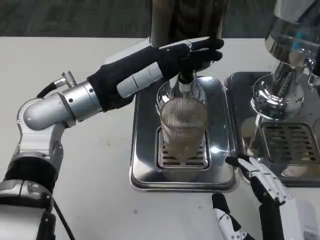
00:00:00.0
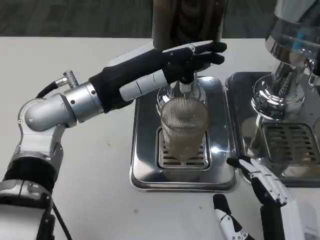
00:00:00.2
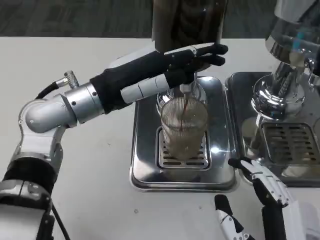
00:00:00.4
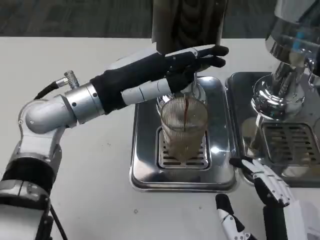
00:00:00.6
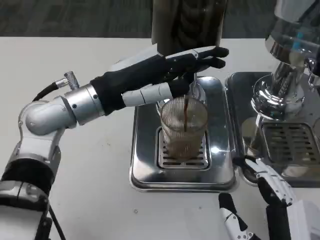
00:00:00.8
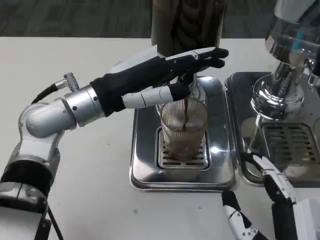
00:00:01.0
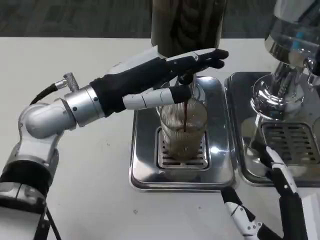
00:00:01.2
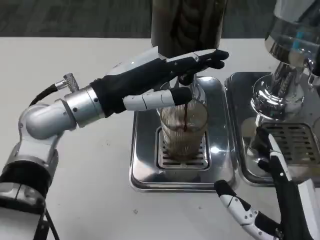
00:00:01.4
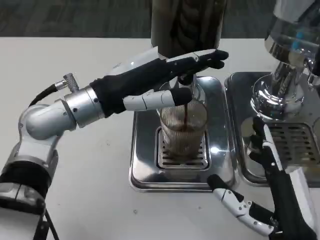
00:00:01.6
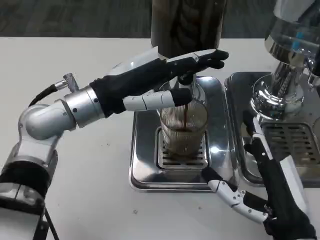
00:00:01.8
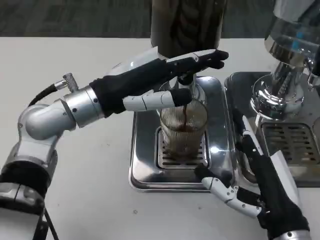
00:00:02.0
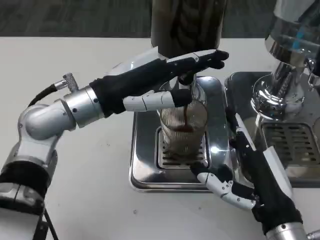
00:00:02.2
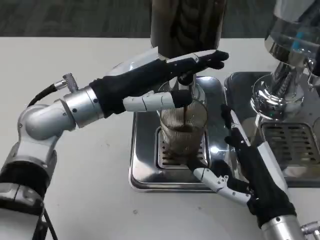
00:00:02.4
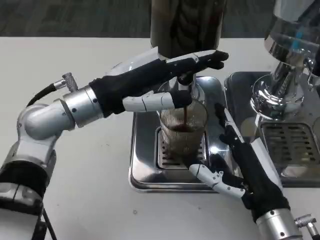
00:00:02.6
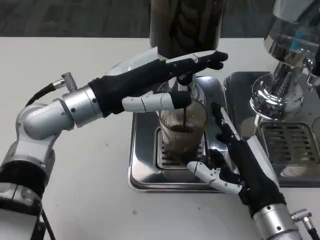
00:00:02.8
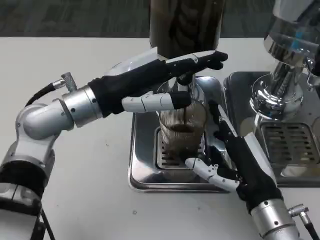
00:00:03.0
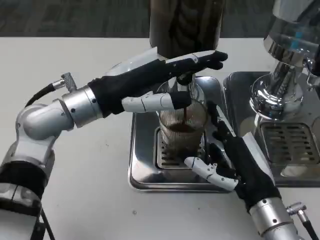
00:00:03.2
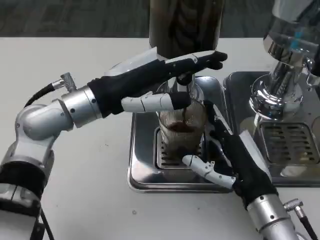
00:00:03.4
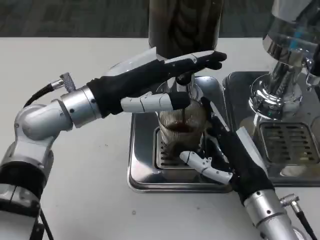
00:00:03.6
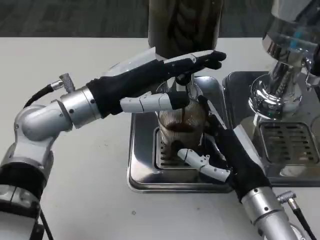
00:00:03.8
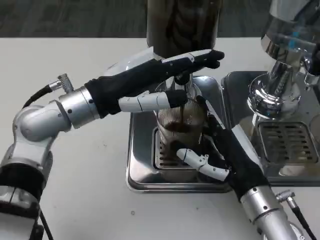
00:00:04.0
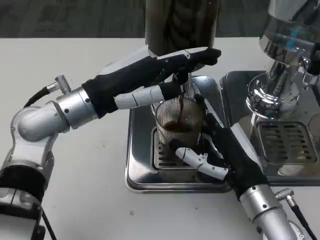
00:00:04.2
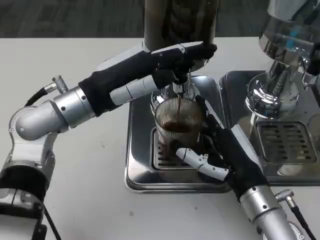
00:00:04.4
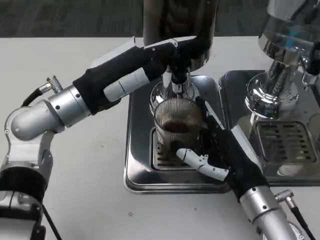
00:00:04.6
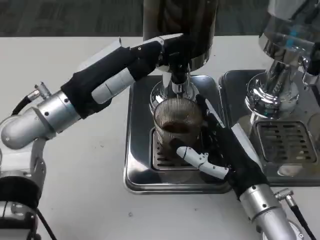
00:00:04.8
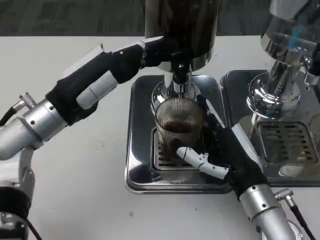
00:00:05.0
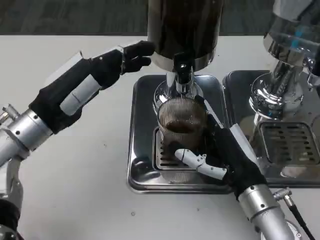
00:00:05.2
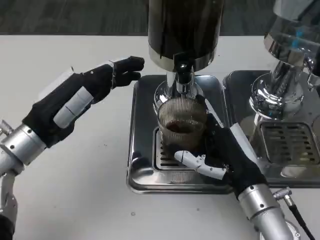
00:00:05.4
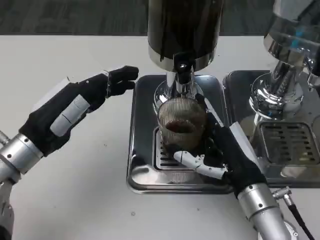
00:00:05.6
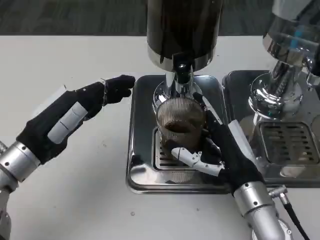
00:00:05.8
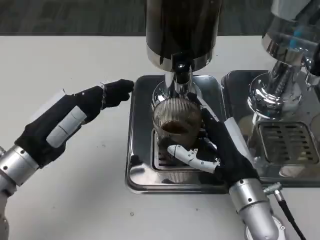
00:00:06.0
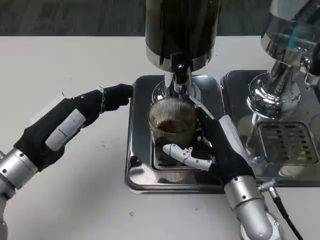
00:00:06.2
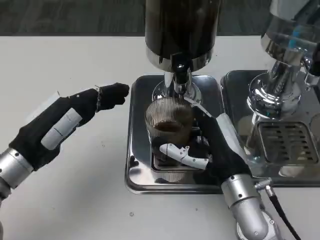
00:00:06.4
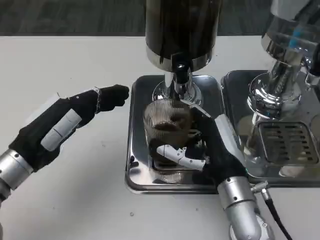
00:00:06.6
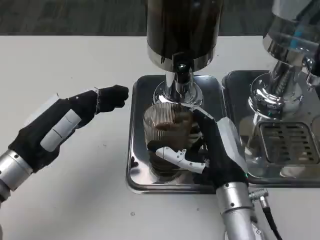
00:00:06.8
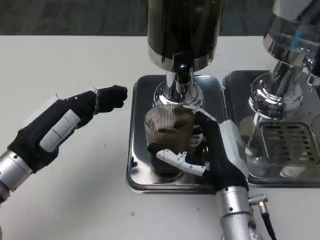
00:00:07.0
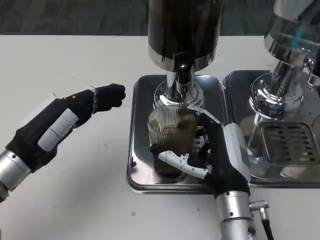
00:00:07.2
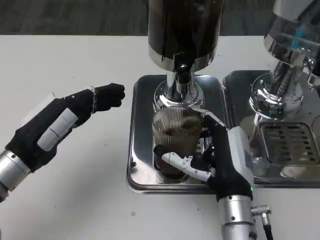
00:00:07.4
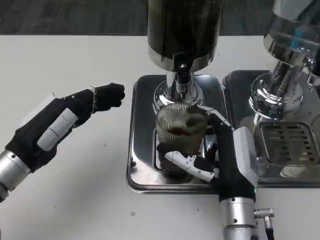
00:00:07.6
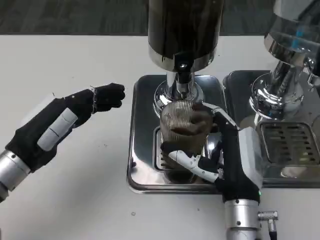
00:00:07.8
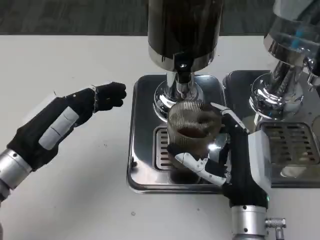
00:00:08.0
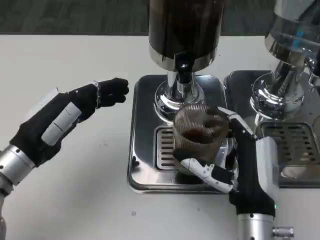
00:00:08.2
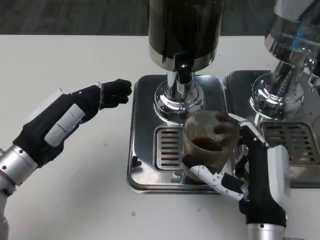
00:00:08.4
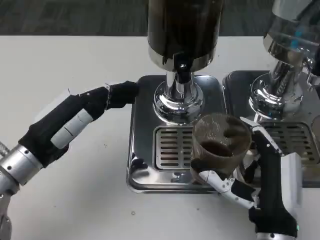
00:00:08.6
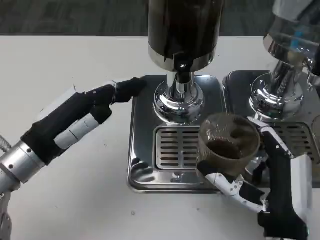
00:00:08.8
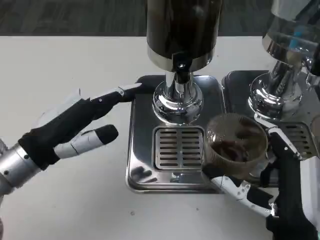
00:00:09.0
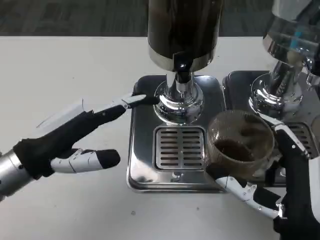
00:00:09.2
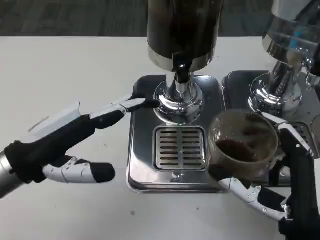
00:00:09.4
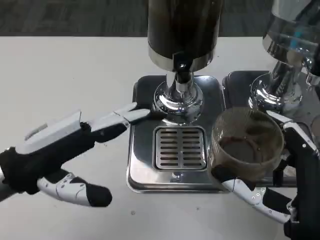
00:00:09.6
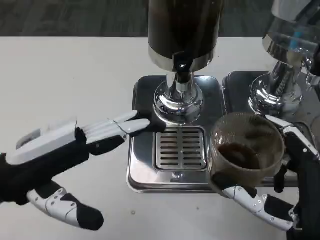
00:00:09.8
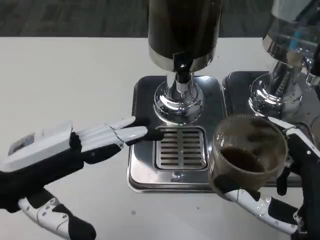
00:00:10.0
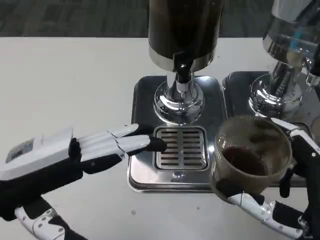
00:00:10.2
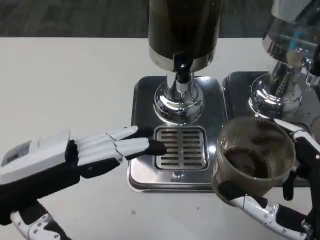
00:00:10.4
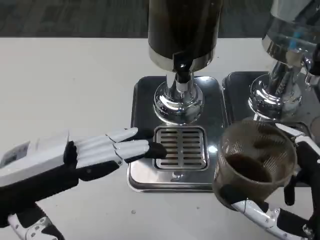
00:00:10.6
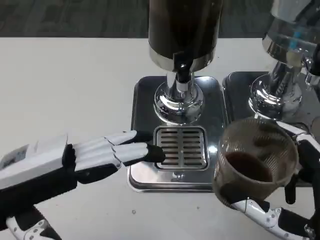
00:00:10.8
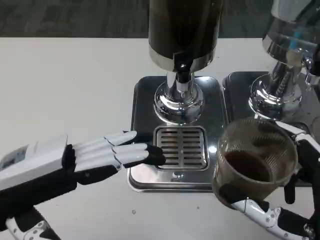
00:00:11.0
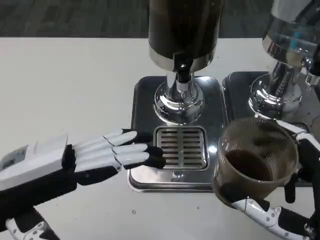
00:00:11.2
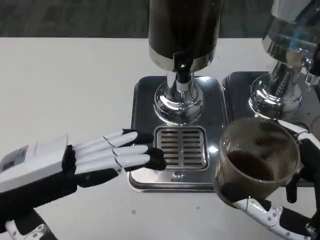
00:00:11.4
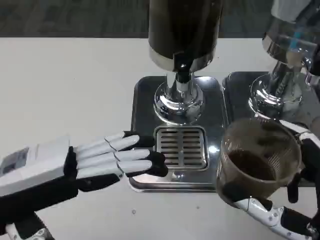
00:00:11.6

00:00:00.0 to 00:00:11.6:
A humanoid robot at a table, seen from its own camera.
Task of the whole recording: Grasp the cup under the faucet to collect the drink, then remove the cup.
00:00:01.4 to 00:00:02.8: The right hand moves forward, about 10 cm.
00:00:04.4 to 00:00:05.8: The left hand is displaced to the left, backward and downward by roughly 10 cm.
00:00:05.8 to 00:00:07.2: There are only small adjustments of the hands.
00:00:07.2 to 00:00:08.8: The right hand travels backward by approximately 5 cm.
00:00:08.8 to 00:00:10.2: The right hand ends up about 5 cm from where it was; the left hand is displaced backward and upward by about 10 cm.
00:00:10.2 to 00:00:11.6: There are only small adjustments of the hands.
